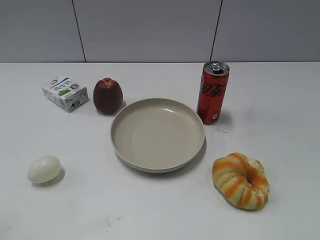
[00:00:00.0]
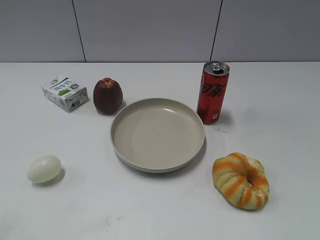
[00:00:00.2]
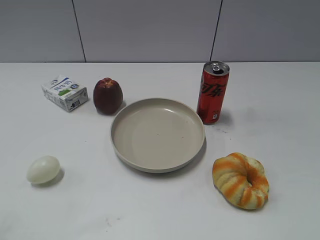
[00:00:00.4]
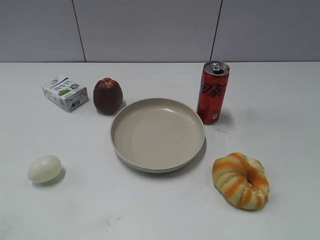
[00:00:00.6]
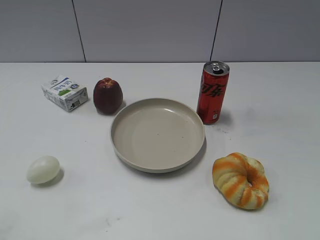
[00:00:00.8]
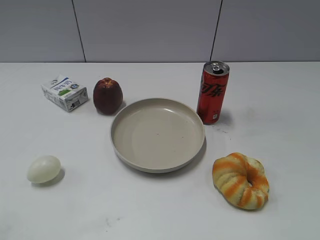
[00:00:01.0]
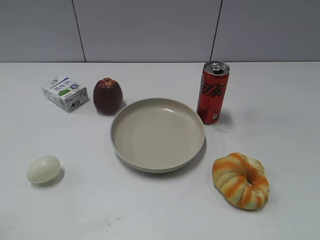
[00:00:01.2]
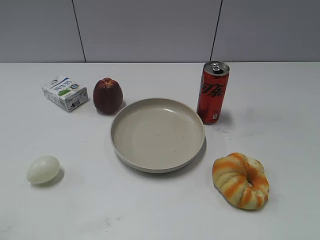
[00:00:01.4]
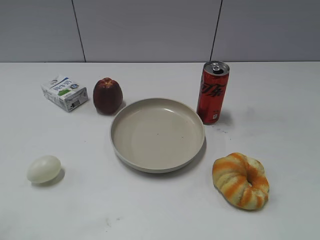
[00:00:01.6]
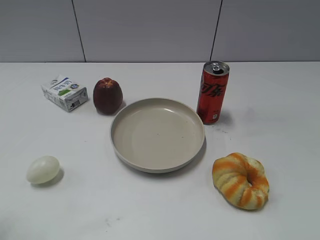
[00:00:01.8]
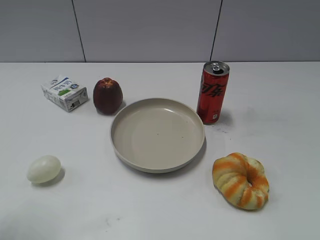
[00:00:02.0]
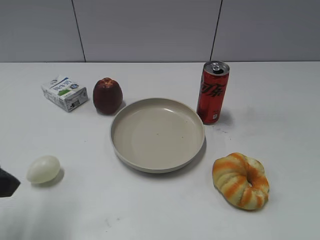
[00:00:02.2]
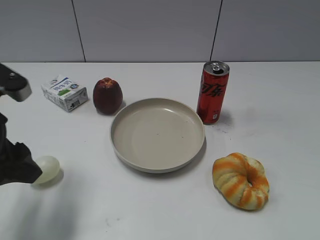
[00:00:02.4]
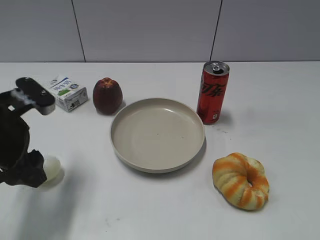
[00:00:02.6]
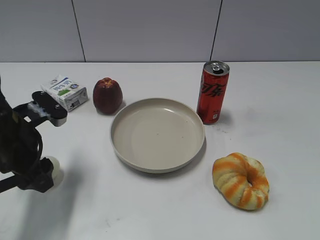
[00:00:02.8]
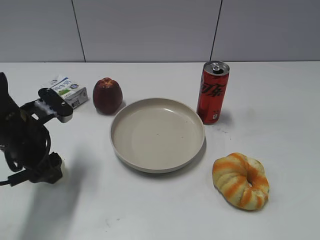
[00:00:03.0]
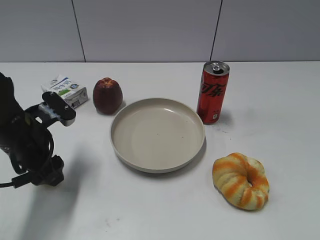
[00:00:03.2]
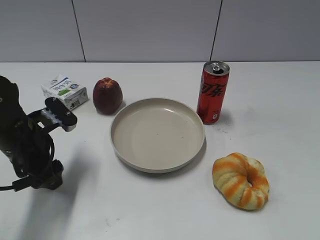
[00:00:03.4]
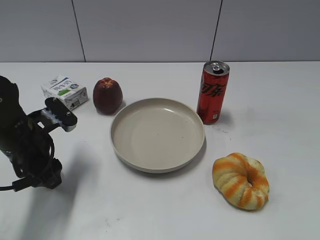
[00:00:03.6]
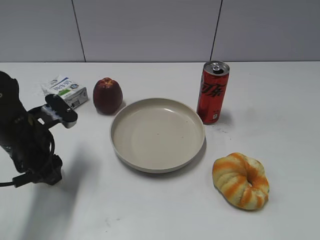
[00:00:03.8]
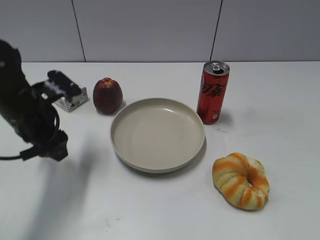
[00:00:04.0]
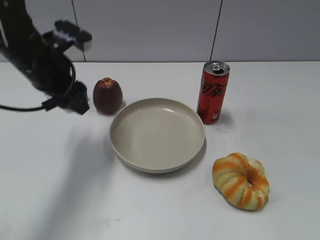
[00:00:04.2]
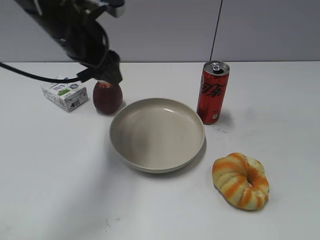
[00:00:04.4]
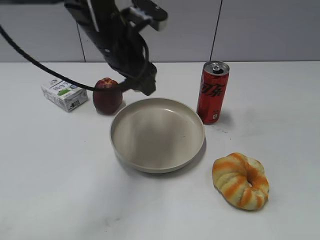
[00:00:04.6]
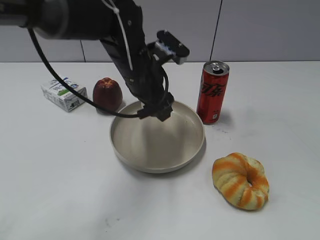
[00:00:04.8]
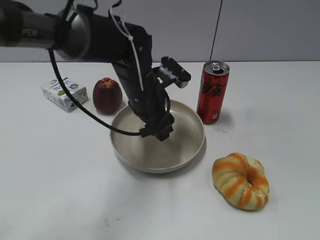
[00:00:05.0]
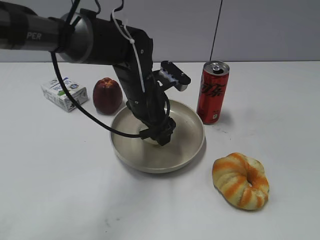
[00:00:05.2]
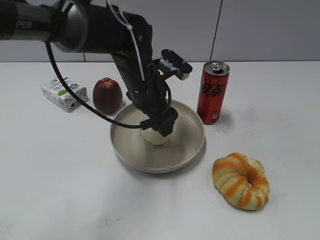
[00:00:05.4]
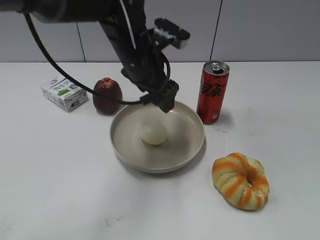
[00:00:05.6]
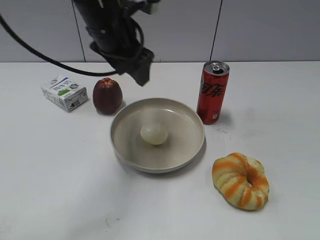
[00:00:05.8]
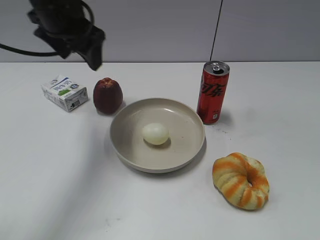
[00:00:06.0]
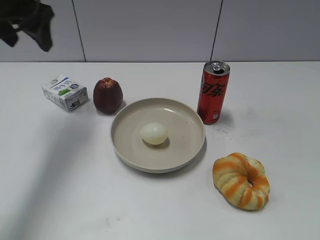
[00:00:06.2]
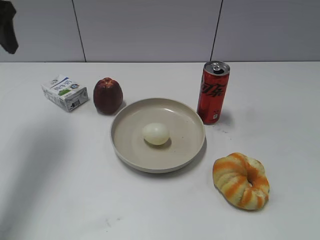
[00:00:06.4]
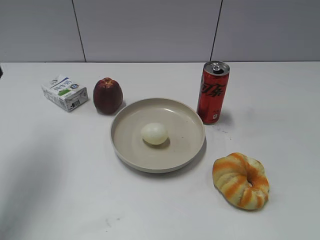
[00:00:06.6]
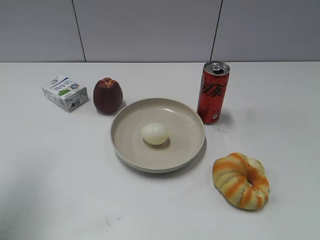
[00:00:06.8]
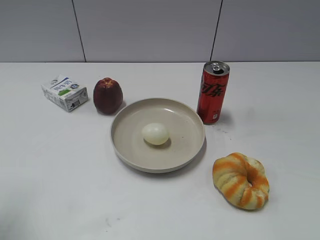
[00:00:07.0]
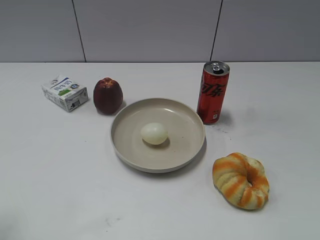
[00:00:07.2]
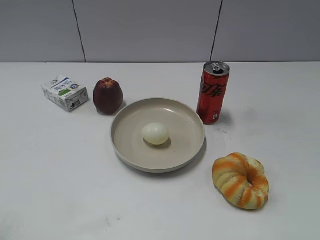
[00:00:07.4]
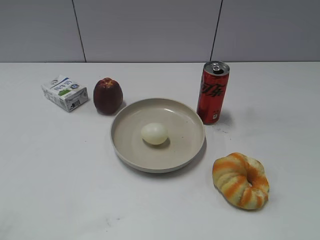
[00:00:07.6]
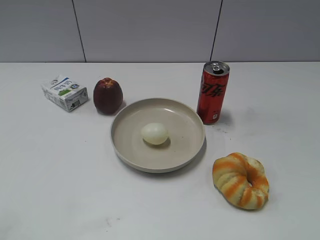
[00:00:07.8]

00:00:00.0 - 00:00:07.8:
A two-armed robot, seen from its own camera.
Step, 00:00:01.2 - 00:00:03.4: Grasp the egg with left gripper.
Step, 00:00:03.8 - 00:00:05.4: Place the egg on the plate with left gripper.
00:00:01.6 - 00:00:03.2: The left gripper moves forward, downward and to the right, about 25 cm.
00:00:03.2 - 00:00:04.6: The left gripper moves to the right, upward and forward, approximately 20 cm, and closes its fingers.
00:00:04.6 - 00:00:06.2: The left gripper heads to the left and upward, covering some 20 cm, and opens up.
00:00:06.2 - 00:00:07.8: The left gripper moves backward, roughly 35 cm.
